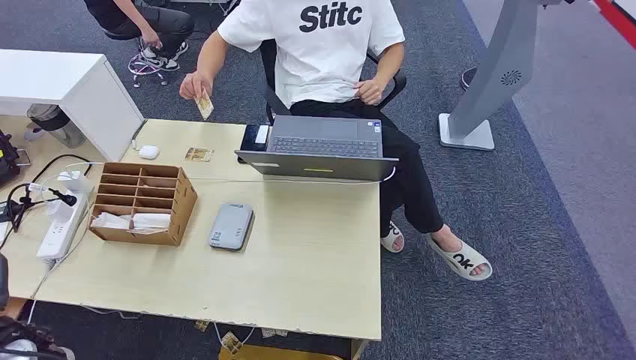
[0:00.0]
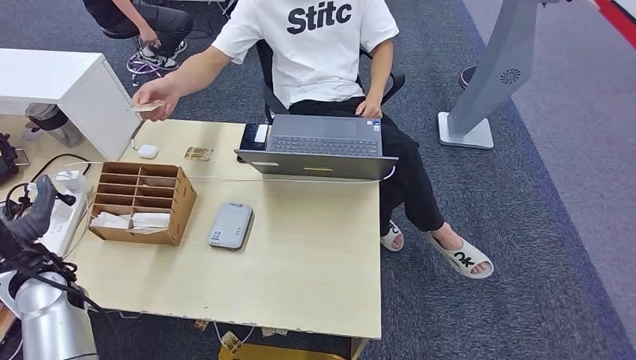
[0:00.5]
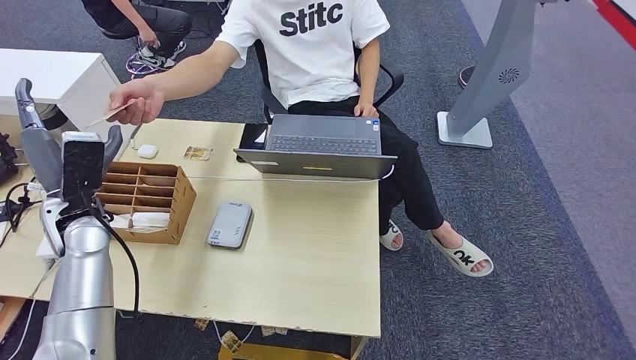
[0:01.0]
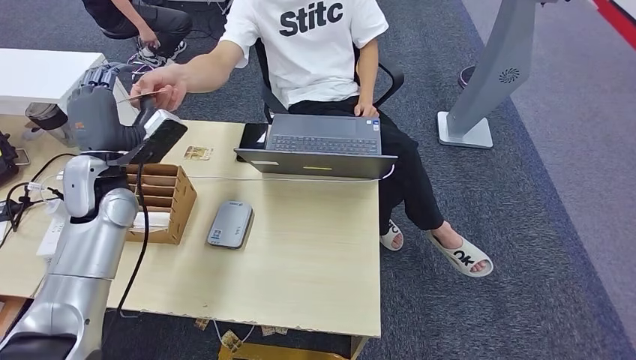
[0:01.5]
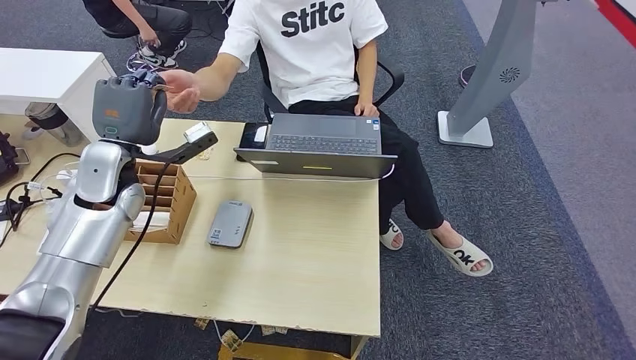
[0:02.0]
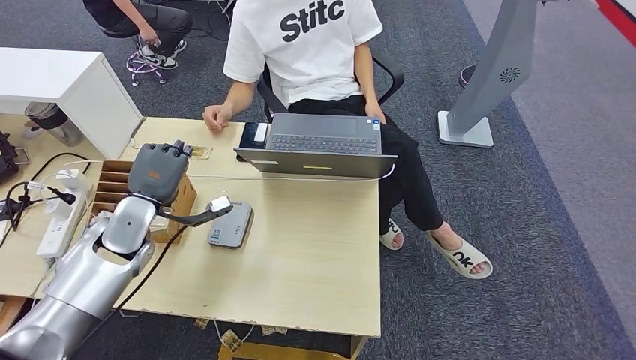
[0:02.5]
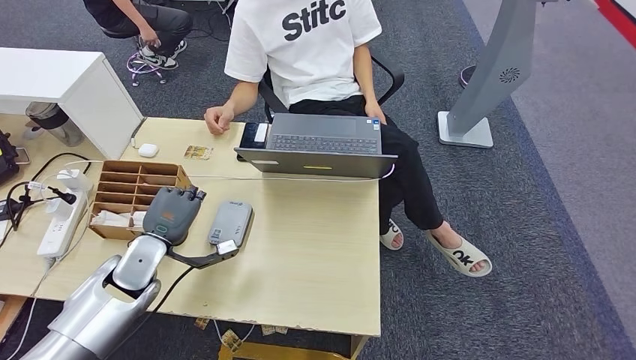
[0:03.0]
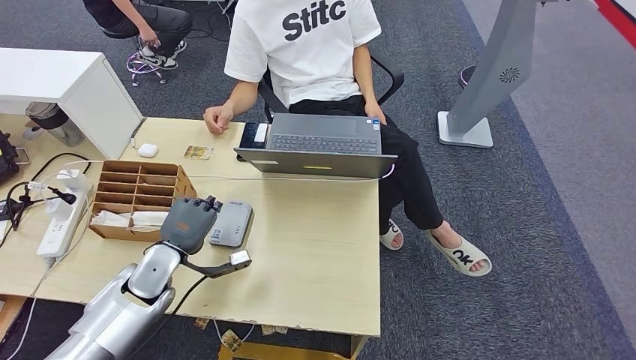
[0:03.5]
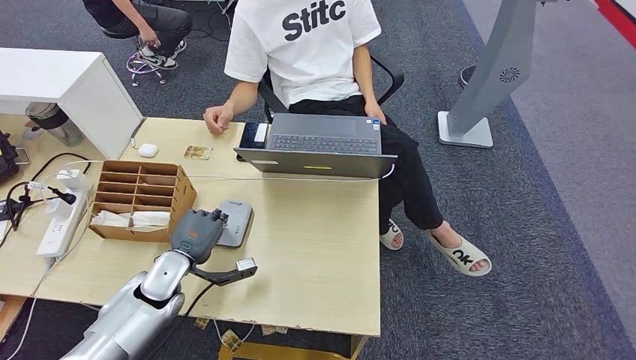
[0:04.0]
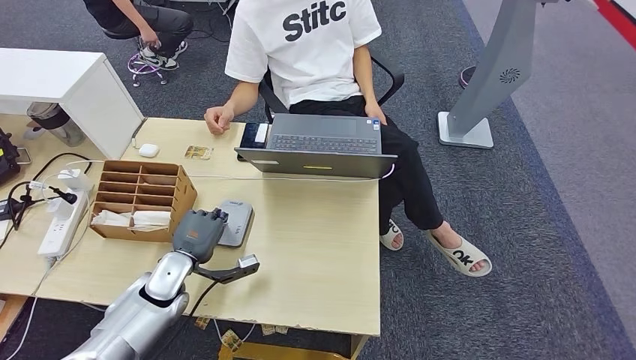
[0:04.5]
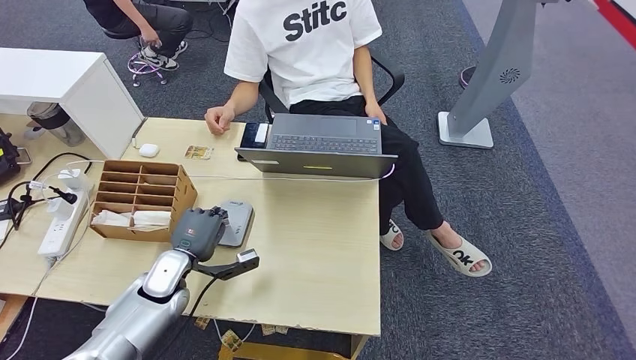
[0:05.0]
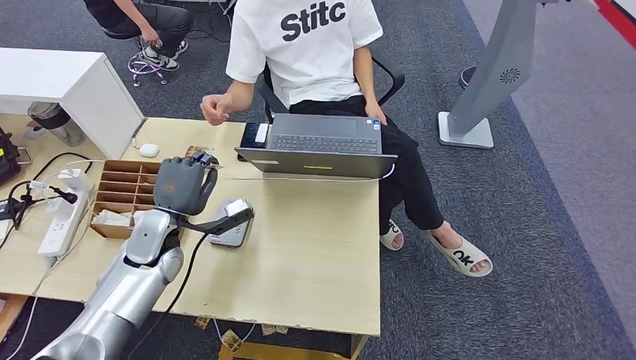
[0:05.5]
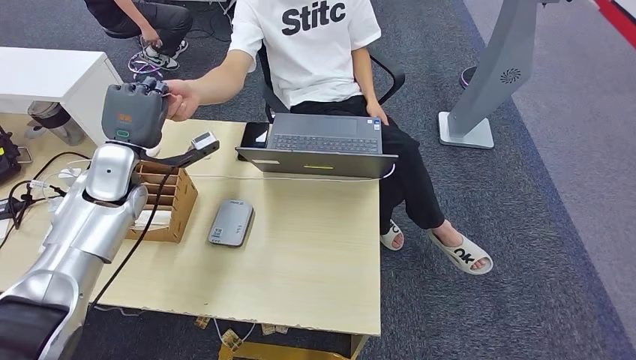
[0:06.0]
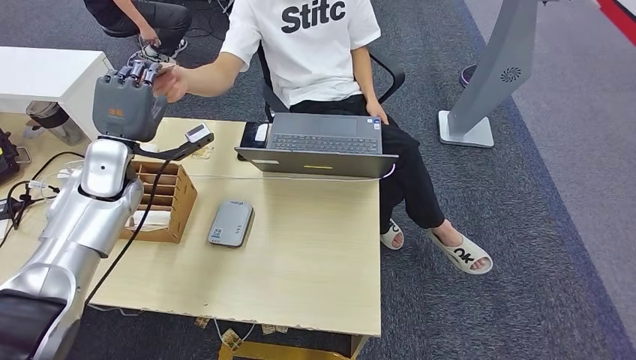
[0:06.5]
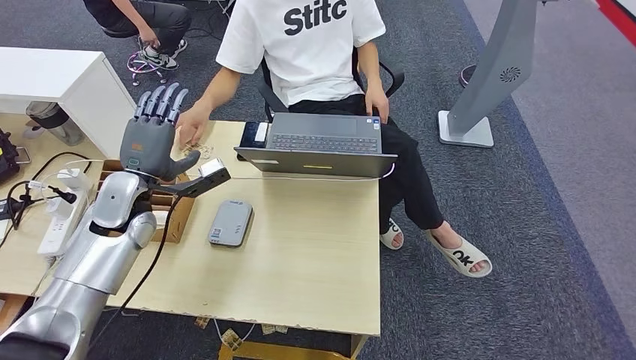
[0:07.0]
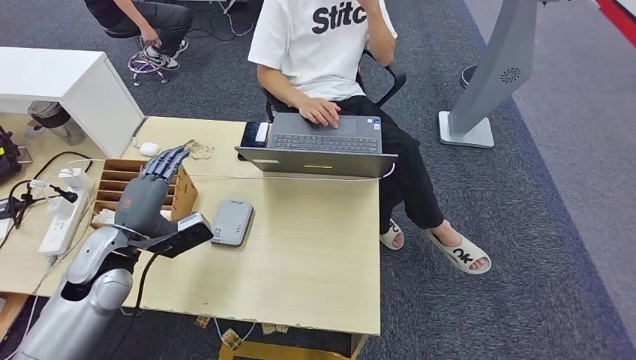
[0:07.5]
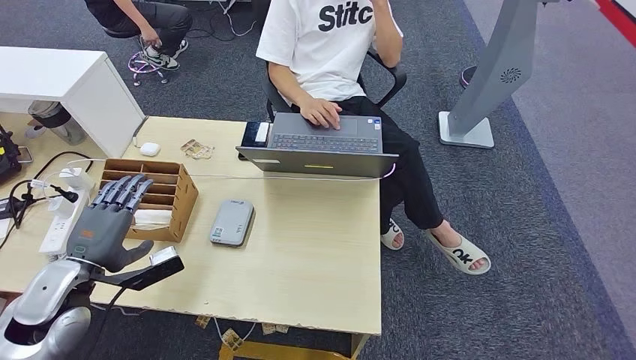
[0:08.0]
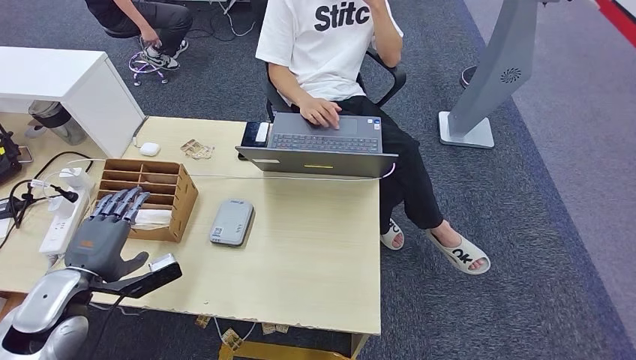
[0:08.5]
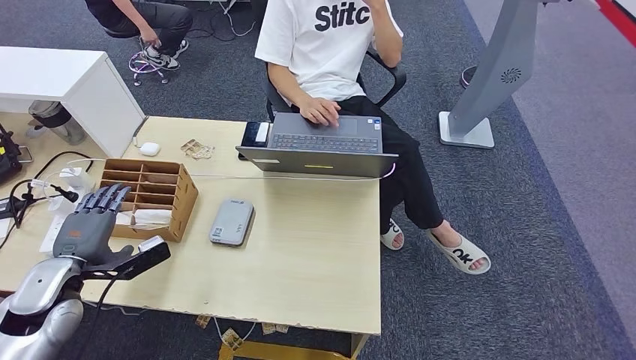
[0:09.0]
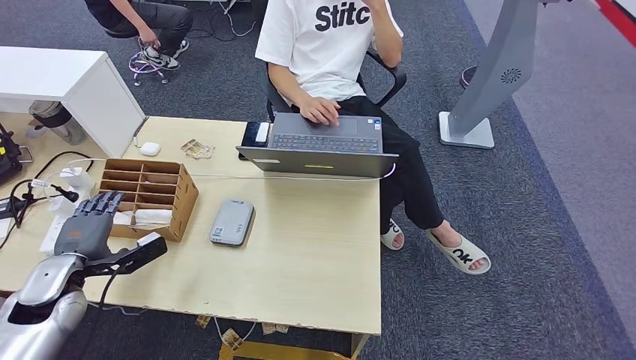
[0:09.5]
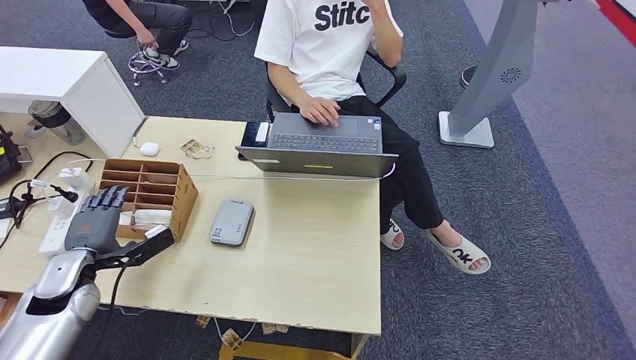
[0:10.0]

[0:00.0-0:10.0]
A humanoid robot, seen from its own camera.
Step, 0:00.0 to 0:03.0: Take the ID card from the person's hand.
Step, 0:03.5 to 0:05.0: Place the ID card on the card reader.
Step, 0:05.5 to 0:06.5: Hand the ID card to the person.
0:02.0 to 0:04.0: The left hand moves downward and backward, about 20 cm.
0:04.0 to 0:06.0: The left hand goes approximately 20 cm upward and forward.
0:06.0 to 0:08.0: The left hand shifts about 20 cm backward.
0:08.0 to 0:10.0: The left hand moves roughly 10 cm.

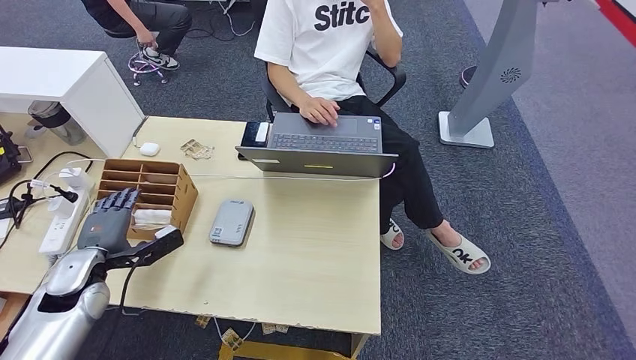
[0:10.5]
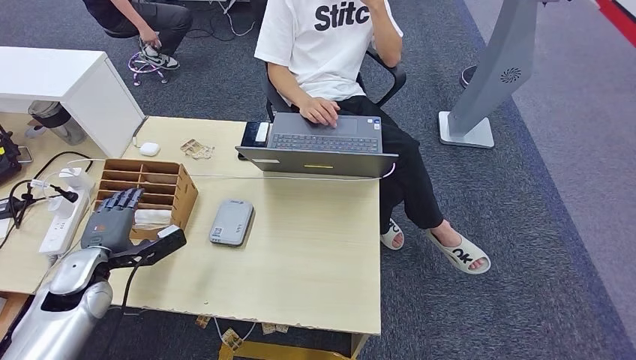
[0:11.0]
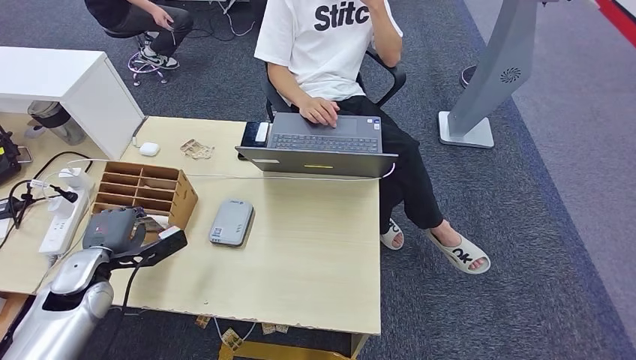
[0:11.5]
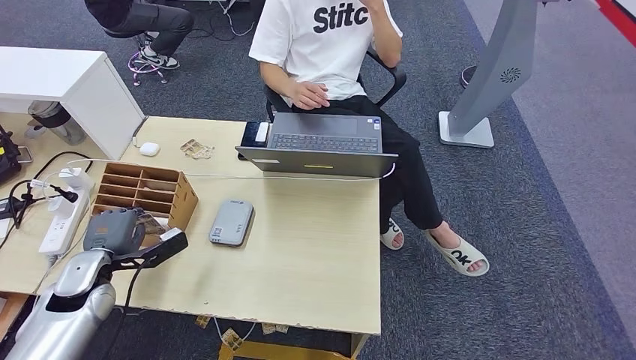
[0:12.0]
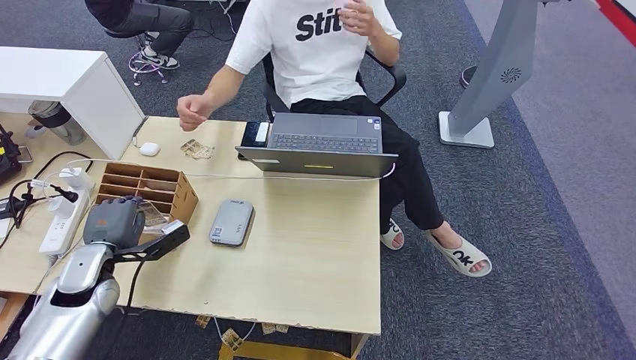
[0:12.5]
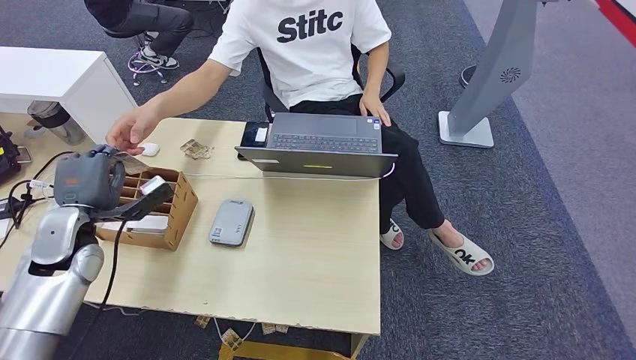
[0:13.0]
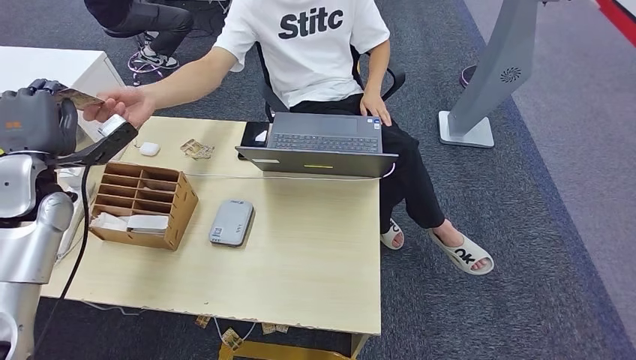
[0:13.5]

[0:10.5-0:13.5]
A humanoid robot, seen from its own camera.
Step, 0:10.5 to 0:12.5: Pick up the room key from the key card box.
Step, 0:13.0 to 0:13.5: Hand the room key to the person.
0:10.5 to 0:12.0: Neither hand changes place.
